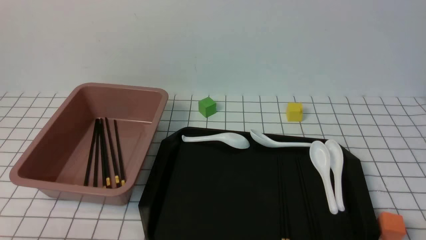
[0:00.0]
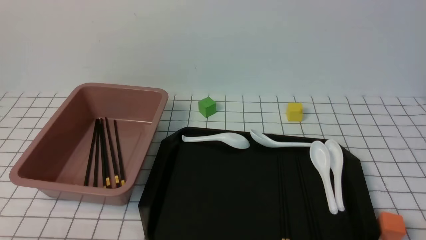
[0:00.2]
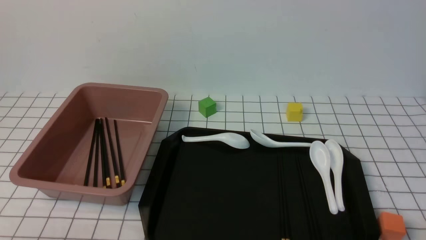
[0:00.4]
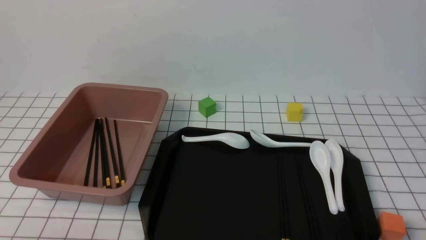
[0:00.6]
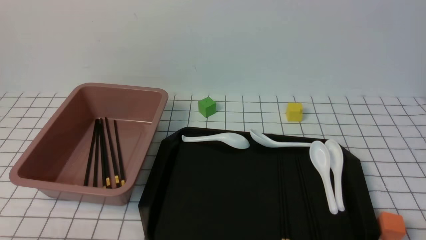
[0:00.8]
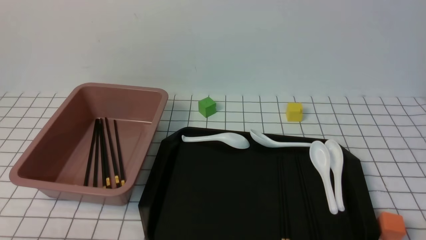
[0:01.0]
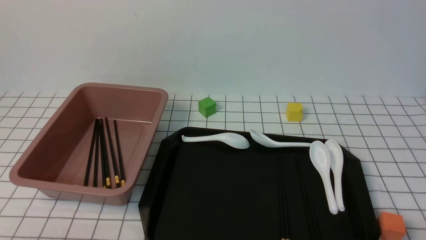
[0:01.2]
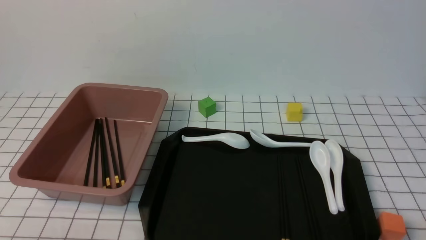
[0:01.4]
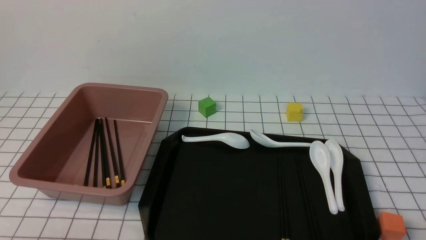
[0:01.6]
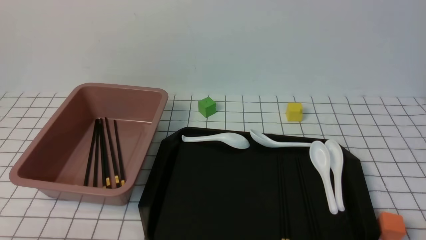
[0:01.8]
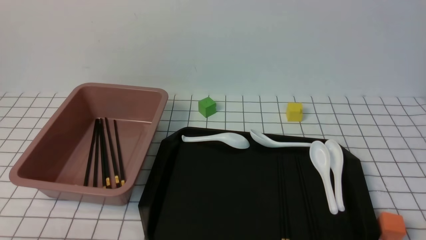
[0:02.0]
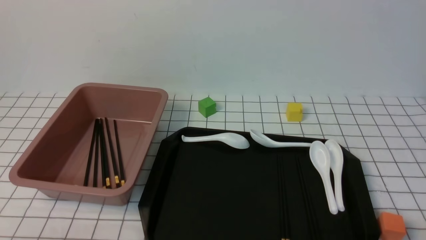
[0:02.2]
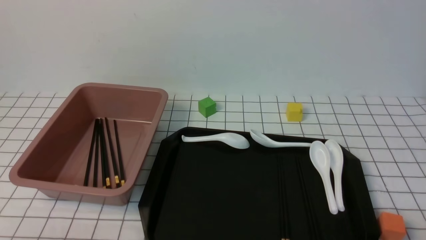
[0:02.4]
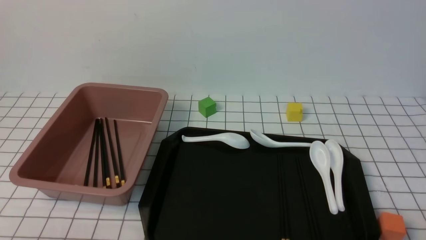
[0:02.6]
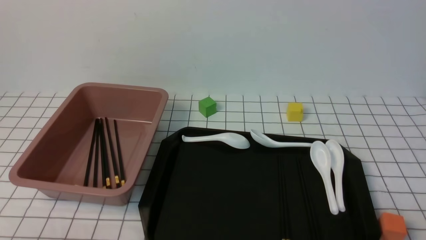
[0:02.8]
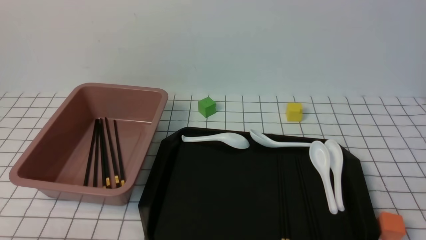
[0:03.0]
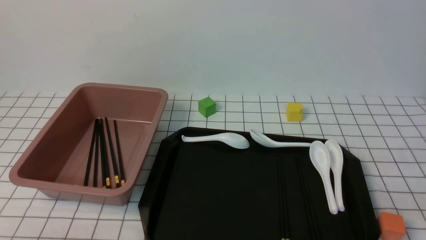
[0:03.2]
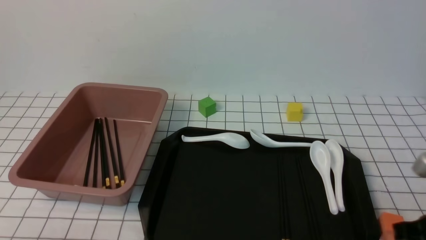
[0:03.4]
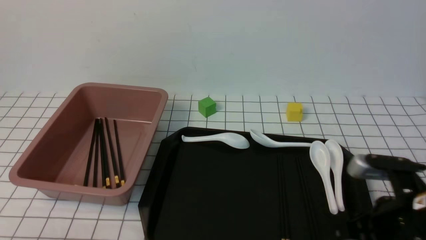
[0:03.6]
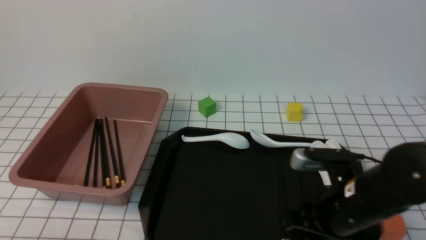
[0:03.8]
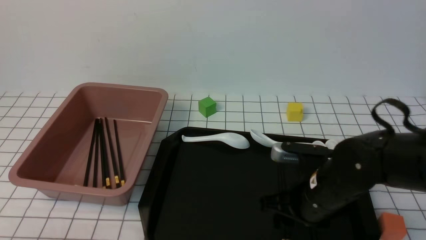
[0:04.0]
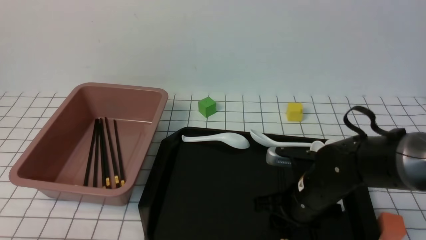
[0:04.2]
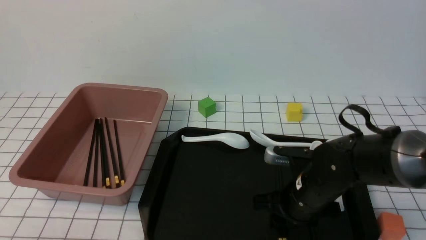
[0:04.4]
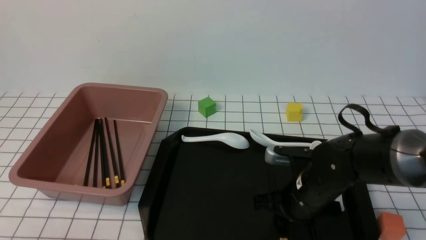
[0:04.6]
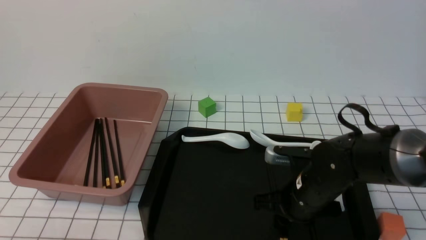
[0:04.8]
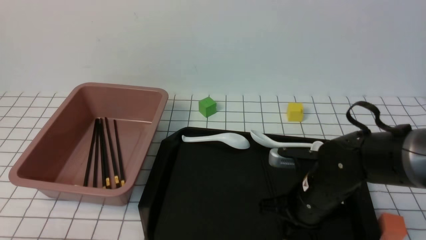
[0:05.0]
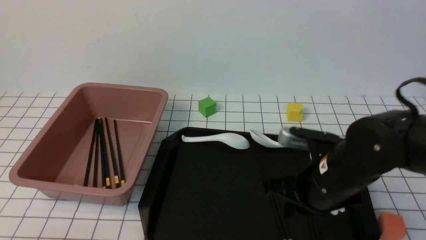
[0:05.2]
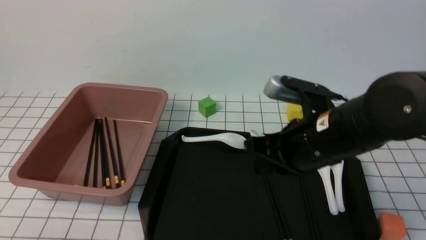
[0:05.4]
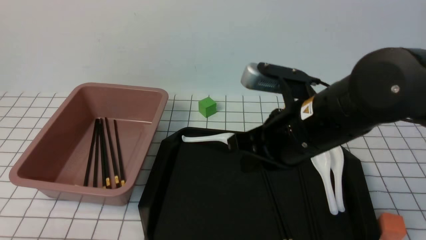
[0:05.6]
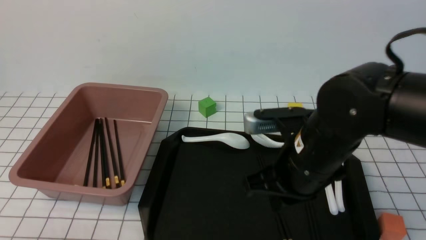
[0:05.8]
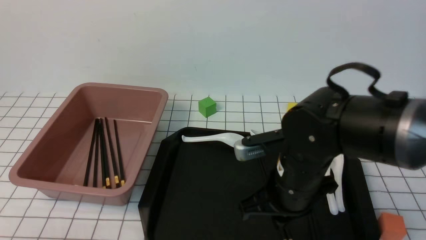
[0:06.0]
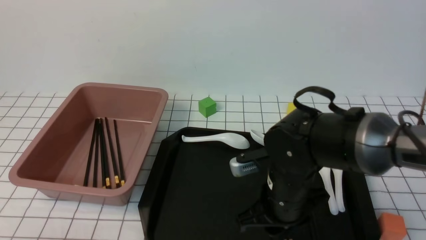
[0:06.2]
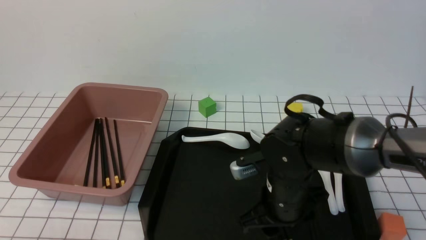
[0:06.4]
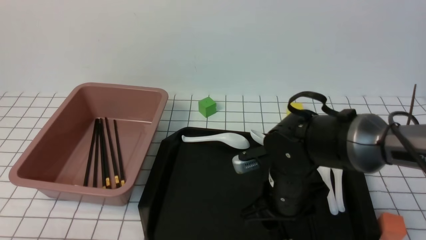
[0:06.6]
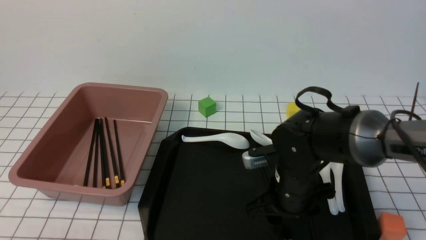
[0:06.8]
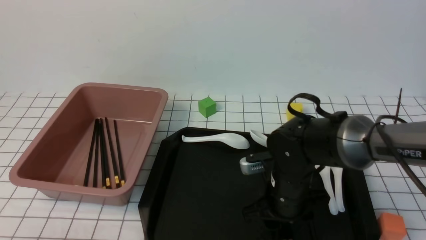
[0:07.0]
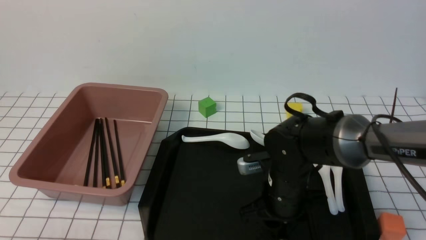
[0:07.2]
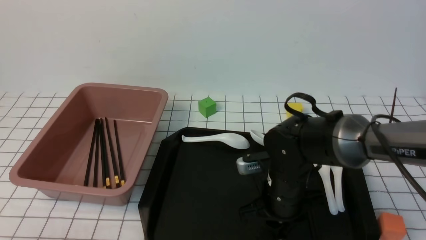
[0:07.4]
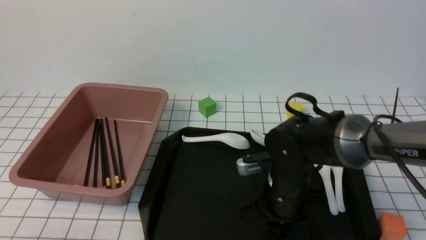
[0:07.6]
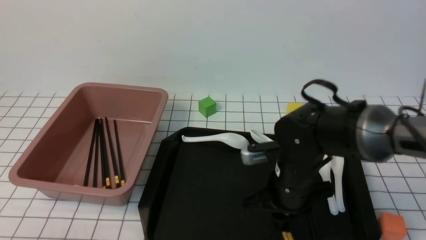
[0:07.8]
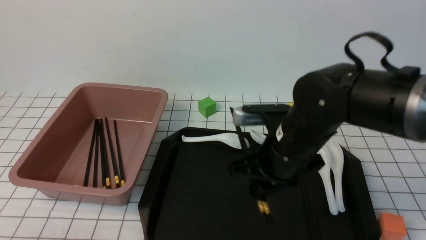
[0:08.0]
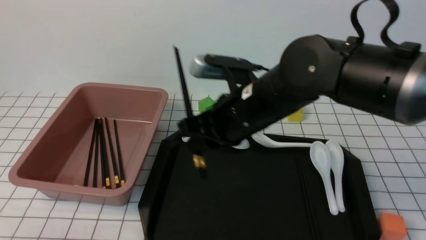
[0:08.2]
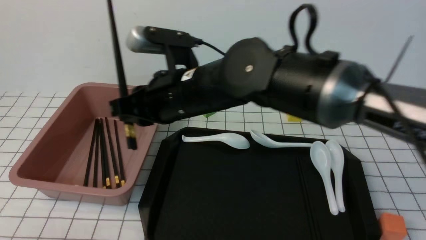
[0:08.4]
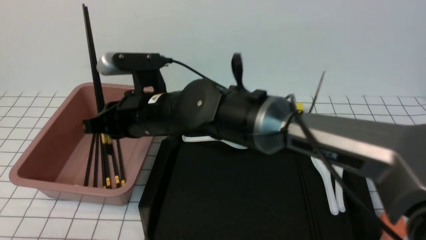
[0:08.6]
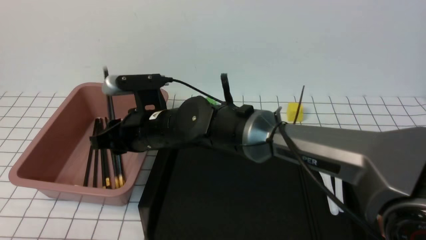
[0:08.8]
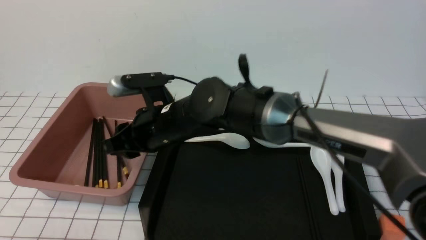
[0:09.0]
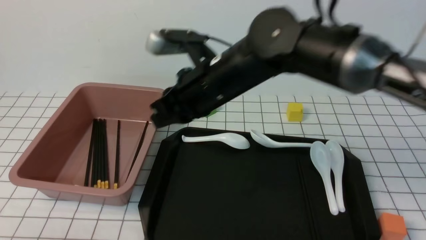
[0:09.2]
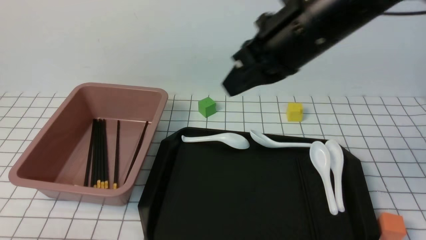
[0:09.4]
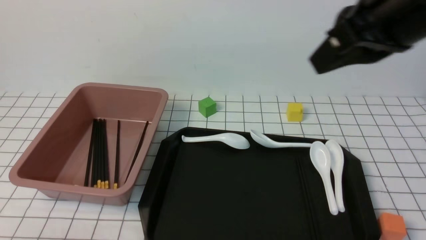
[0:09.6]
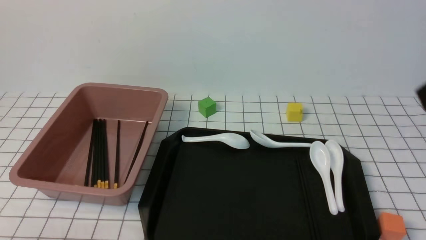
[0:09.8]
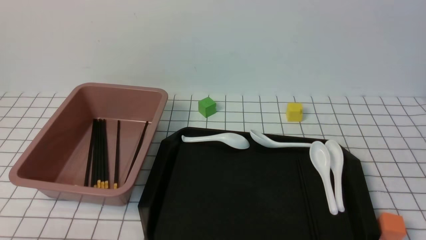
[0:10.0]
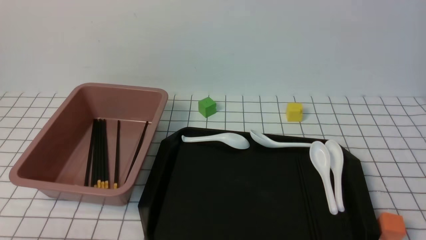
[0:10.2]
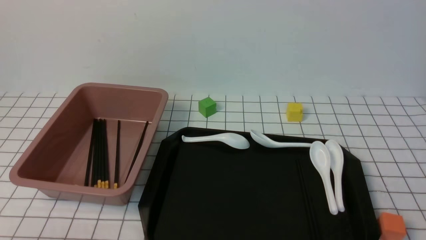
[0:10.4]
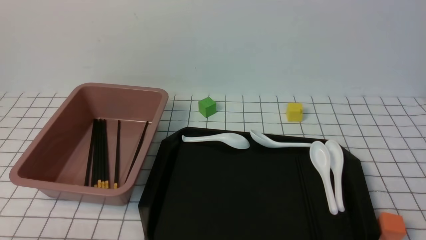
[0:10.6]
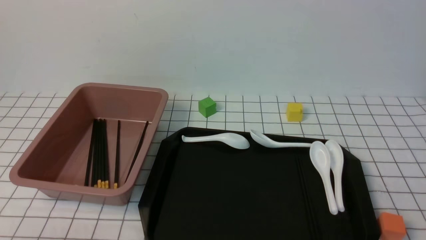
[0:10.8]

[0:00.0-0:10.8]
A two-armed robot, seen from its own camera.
Step, 0:00.0 to 0:08.0: use the right arm to grab a pair of chopsticks.
Step, 0:08.2 to 0:09.2: use the right arm to put the chopsticks into the lunch box.
0:00.0 to 0:01.6: Both grippers stay put.
0:03.0 to 0:04.6: The right gripper shifts about 30 cm forward, to the left and downward, and opens, then closes again.
0:04.6 to 0:06.2: The right gripper goes upward and returns, roughly 15 cm each way, and closes, then reopens.
0:06.2 to 0:07.8: The right gripper opens and closes again.
0:07.8 to 0:09.2: The right gripper shifts approximately 15 cm upward and to the left.
0:09.2 to 0:10.8: The right gripper shifts roughly 35 cm backward and to the right.

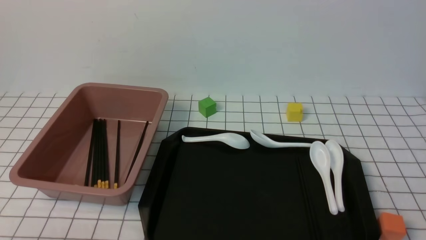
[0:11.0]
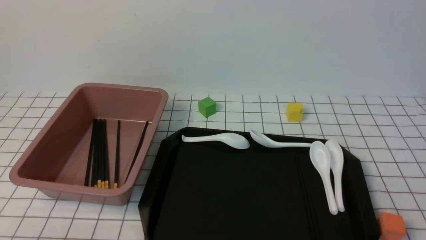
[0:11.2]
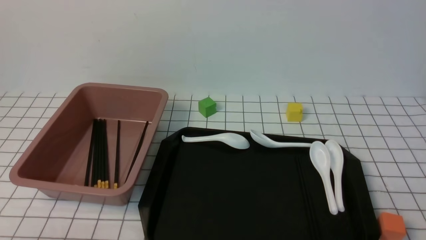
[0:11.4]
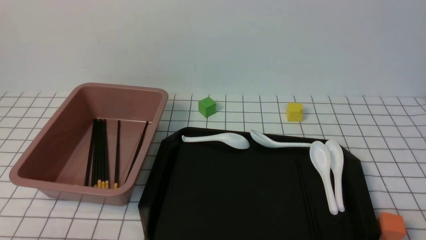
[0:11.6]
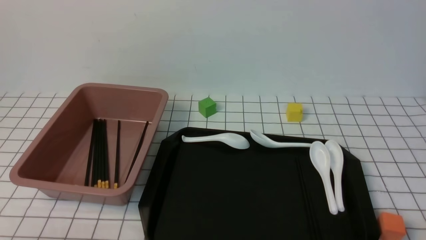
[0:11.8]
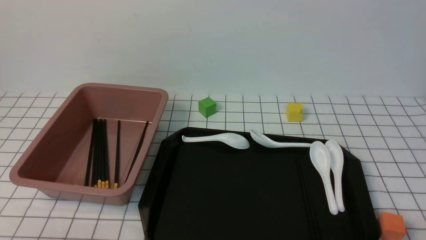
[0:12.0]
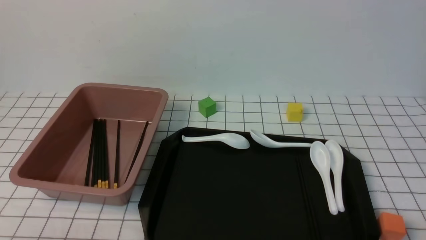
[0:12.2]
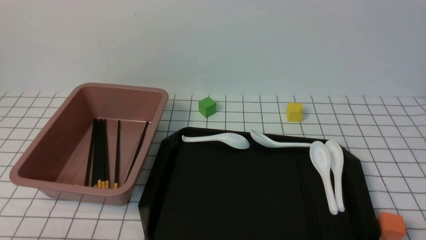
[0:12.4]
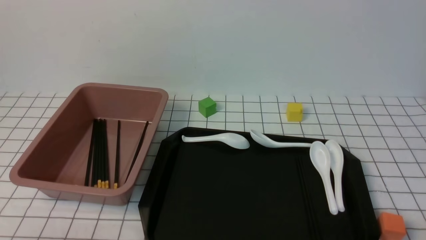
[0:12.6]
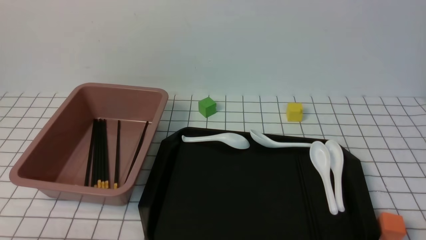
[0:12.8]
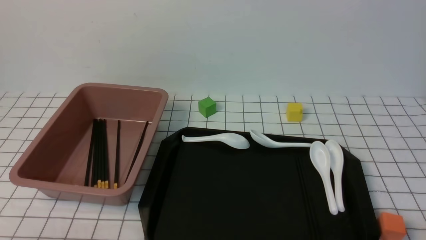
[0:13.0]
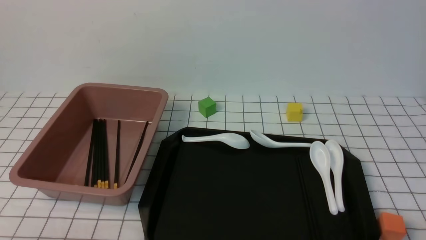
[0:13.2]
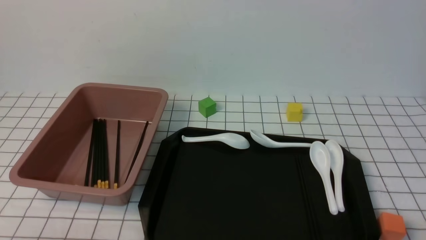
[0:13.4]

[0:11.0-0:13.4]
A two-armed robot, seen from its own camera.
0:12.2 to 0:13.4: Both grippers stay about where they are.
